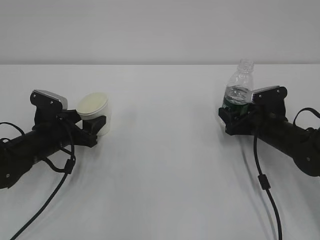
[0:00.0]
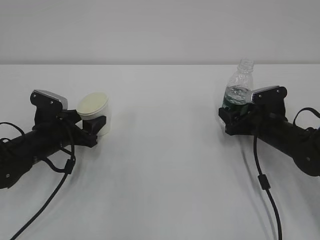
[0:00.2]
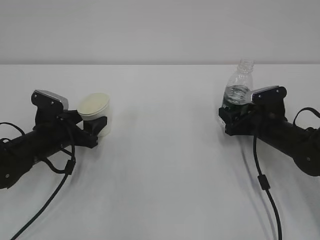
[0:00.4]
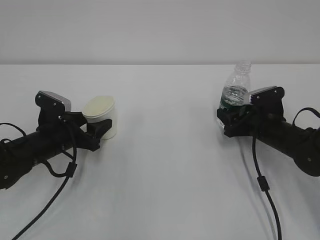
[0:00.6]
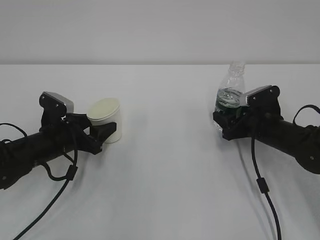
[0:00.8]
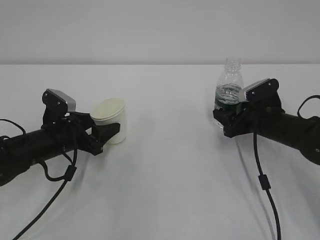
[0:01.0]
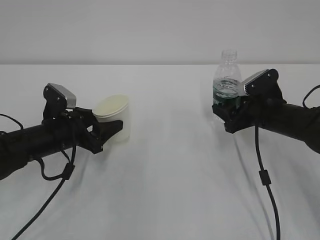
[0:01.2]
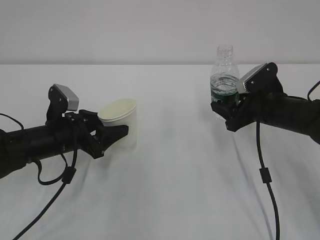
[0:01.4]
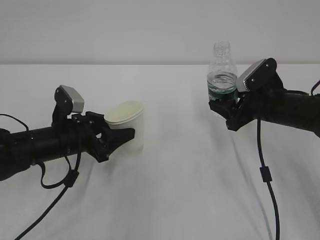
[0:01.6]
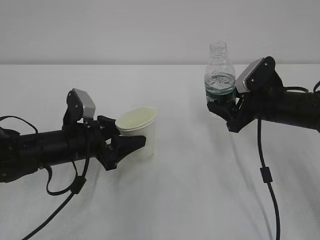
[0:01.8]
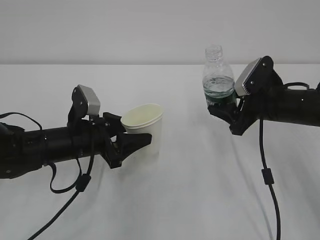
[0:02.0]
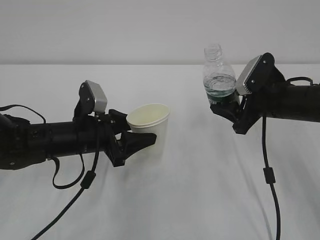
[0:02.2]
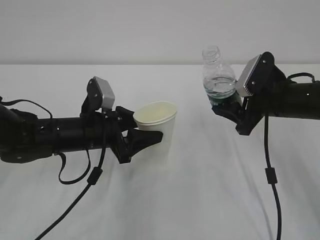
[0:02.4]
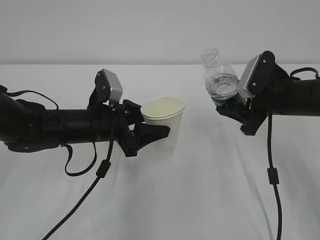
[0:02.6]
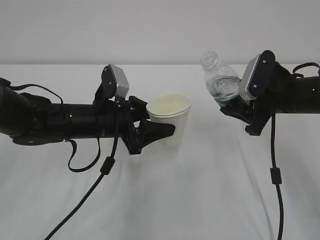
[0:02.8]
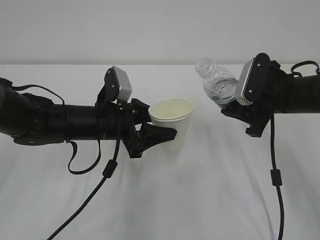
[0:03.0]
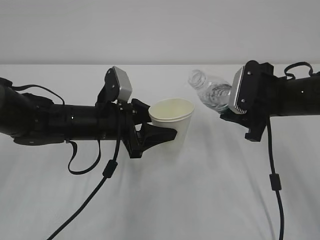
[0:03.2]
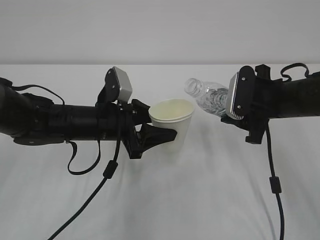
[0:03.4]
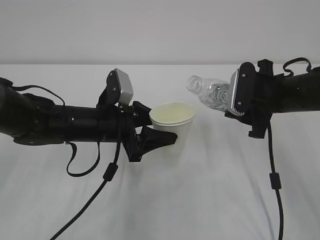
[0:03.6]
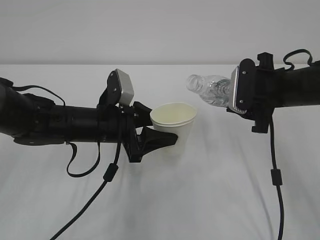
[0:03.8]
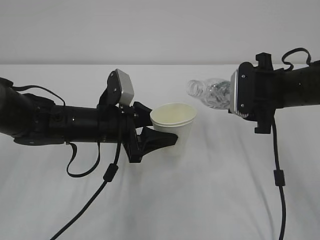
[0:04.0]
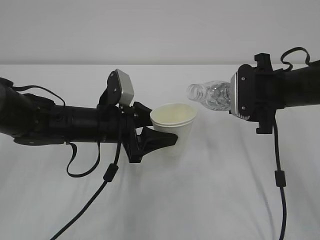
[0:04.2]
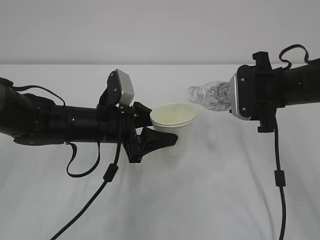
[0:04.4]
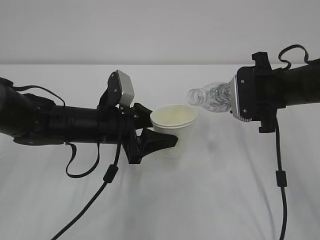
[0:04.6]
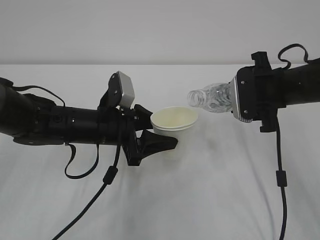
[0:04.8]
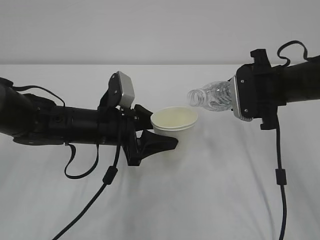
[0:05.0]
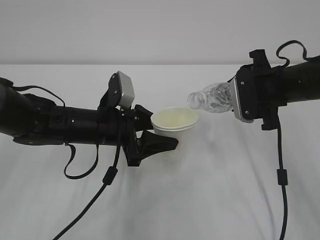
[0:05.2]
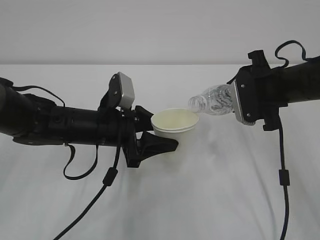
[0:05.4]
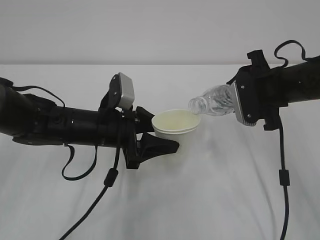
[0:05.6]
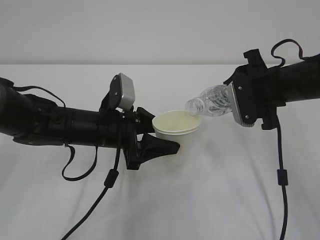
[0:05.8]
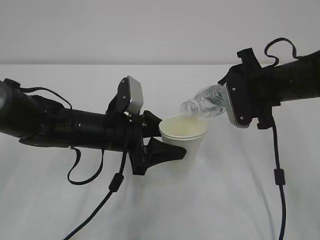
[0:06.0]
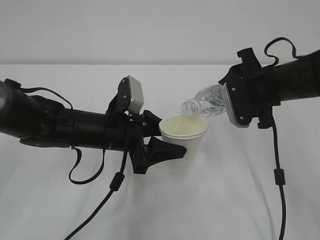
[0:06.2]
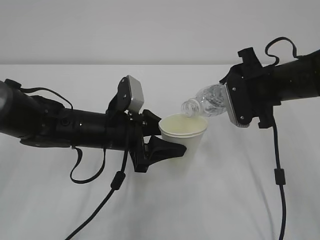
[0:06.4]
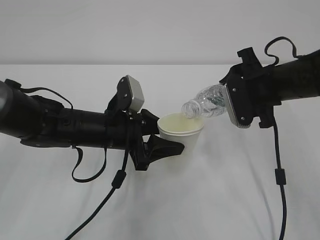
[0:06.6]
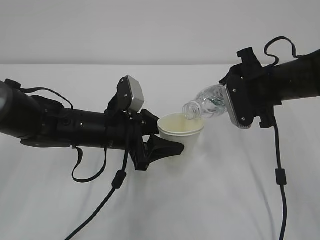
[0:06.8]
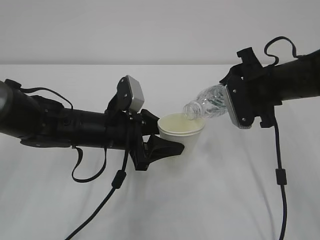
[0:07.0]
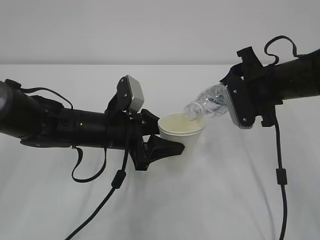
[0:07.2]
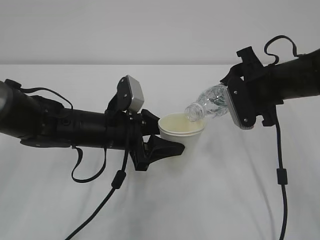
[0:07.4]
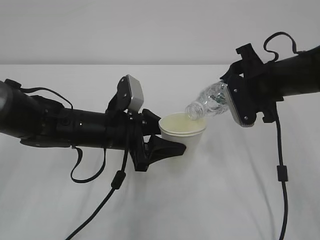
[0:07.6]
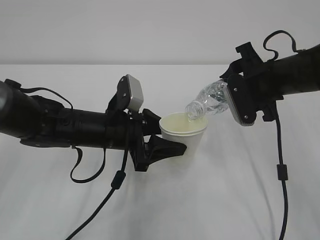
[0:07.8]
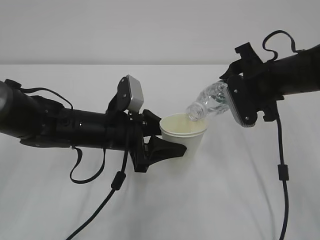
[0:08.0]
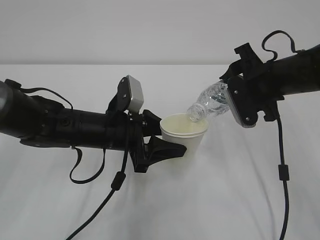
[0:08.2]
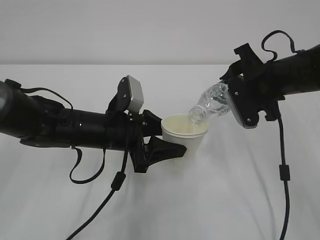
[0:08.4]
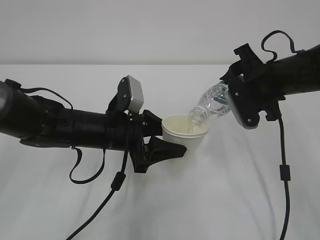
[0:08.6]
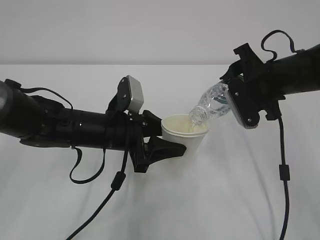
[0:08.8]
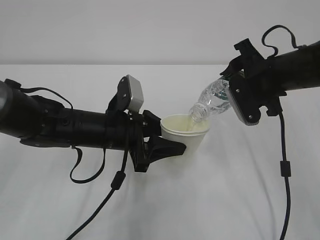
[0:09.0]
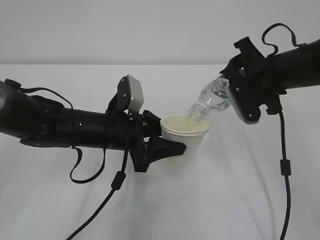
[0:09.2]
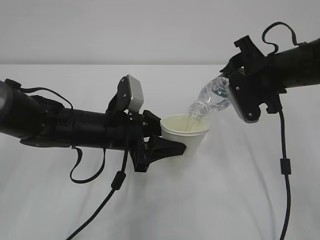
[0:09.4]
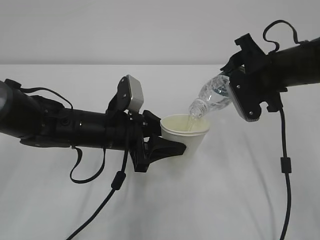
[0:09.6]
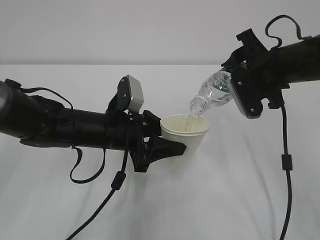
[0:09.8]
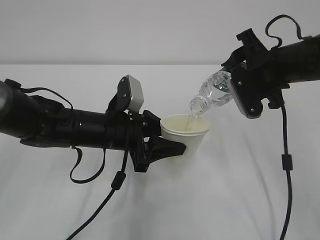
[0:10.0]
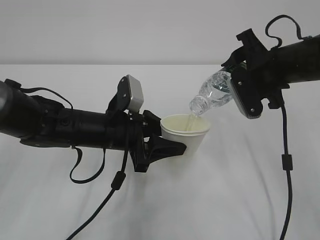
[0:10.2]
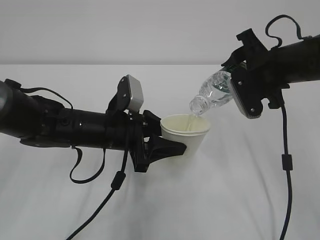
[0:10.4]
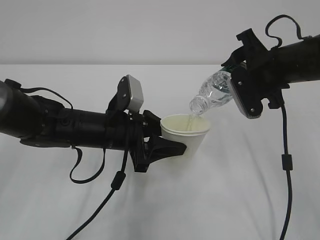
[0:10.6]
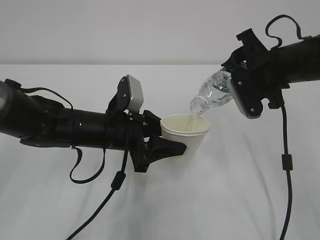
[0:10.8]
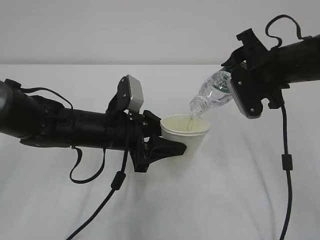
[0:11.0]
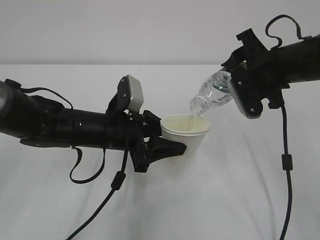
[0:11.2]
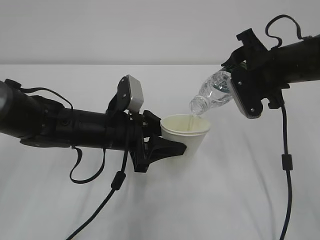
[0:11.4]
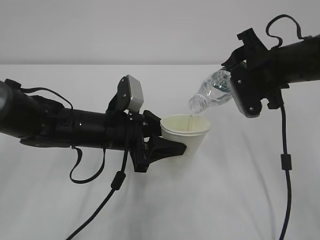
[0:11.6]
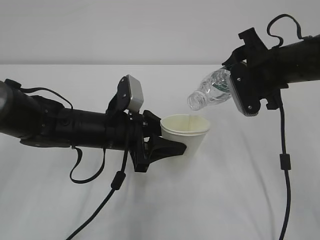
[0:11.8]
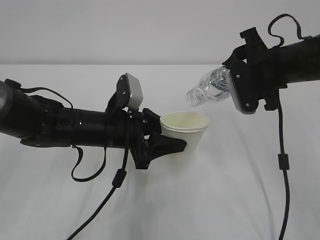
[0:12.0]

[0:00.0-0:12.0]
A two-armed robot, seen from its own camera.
0:00.0 to 0:01.6: The right gripper heads upward, covering approximately 10 cm. Meanwhile the left gripper changes place by roughly 5 cm.
0:01.6 to 0:03.0: The left gripper is displaced to the right by about 5 cm; the right gripper moves about 5 cm.
0:04.4 to 0:06.0: There are only small adjustments of the grippers.
0:06.0 to 0:12.0: There are only small adjustments of the grippers.

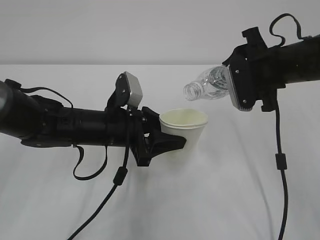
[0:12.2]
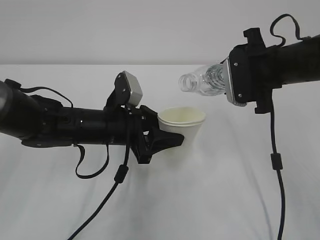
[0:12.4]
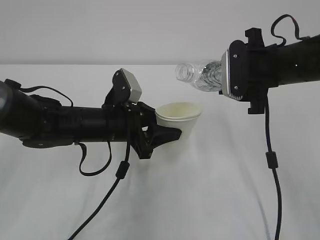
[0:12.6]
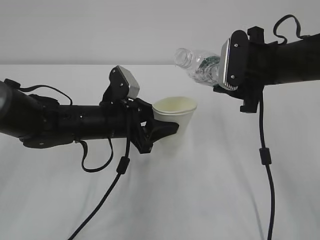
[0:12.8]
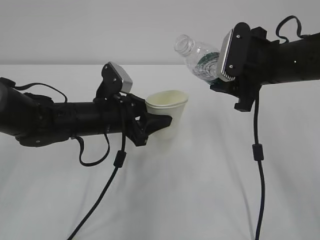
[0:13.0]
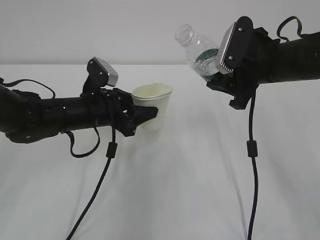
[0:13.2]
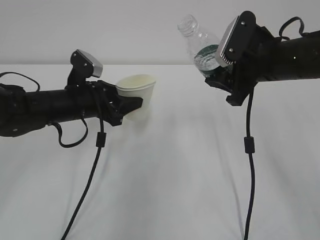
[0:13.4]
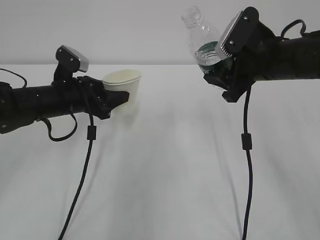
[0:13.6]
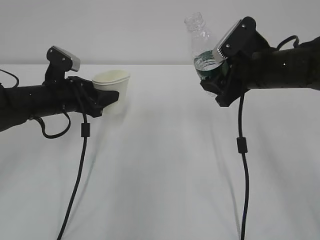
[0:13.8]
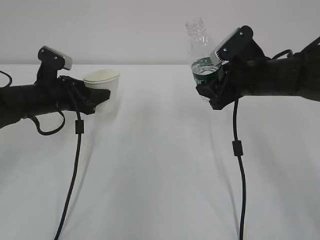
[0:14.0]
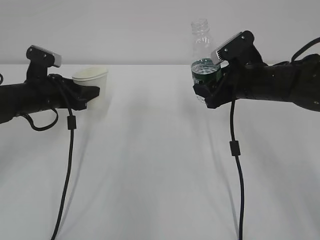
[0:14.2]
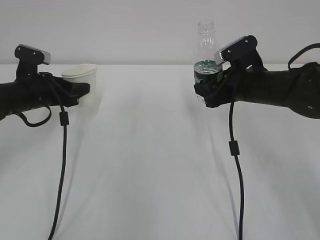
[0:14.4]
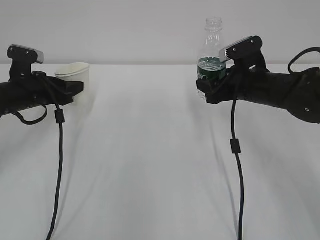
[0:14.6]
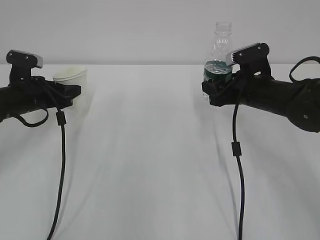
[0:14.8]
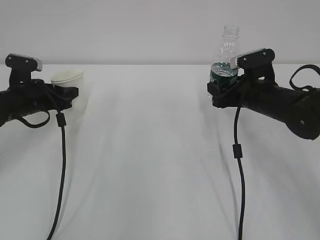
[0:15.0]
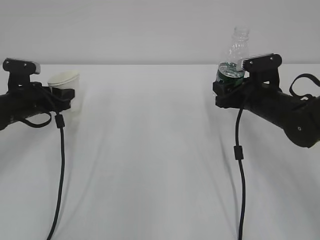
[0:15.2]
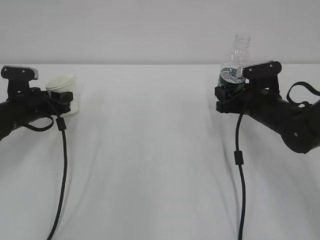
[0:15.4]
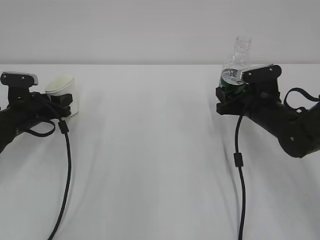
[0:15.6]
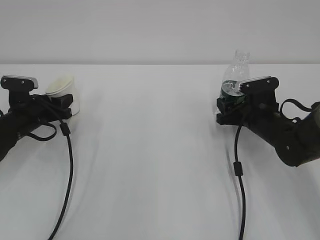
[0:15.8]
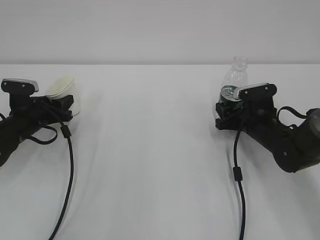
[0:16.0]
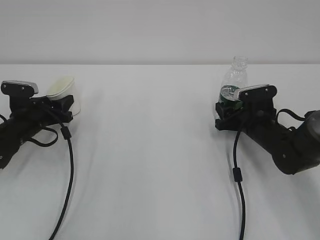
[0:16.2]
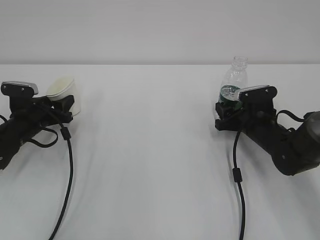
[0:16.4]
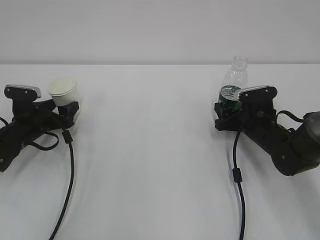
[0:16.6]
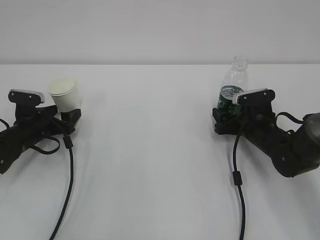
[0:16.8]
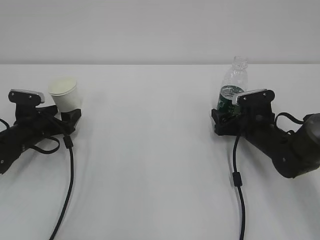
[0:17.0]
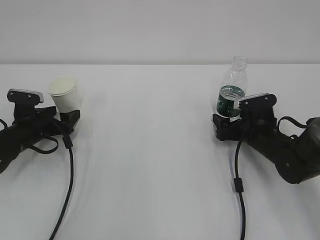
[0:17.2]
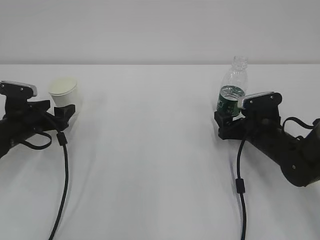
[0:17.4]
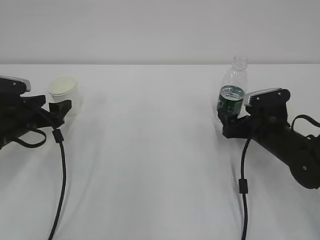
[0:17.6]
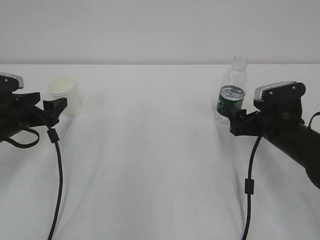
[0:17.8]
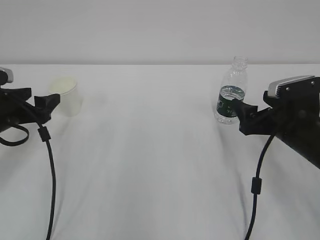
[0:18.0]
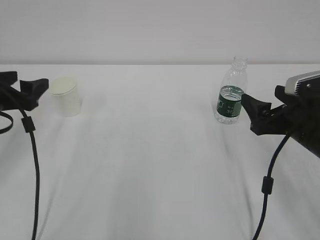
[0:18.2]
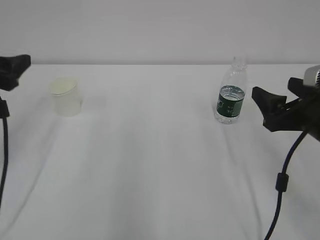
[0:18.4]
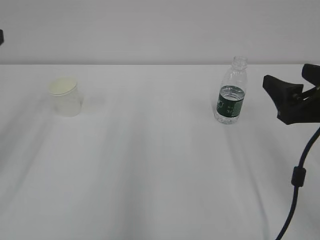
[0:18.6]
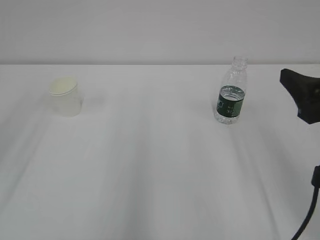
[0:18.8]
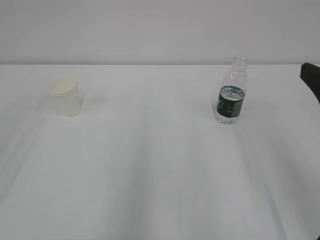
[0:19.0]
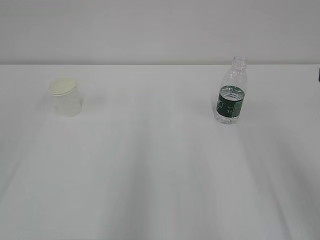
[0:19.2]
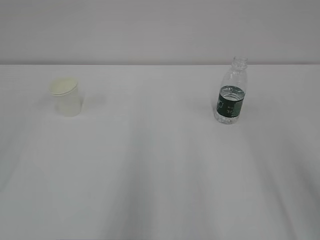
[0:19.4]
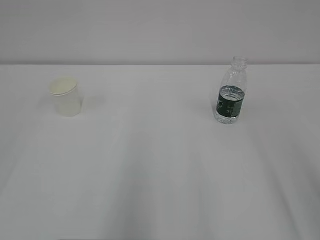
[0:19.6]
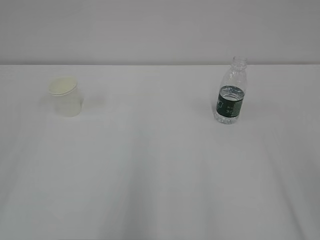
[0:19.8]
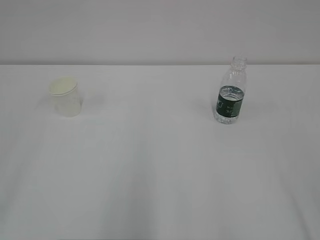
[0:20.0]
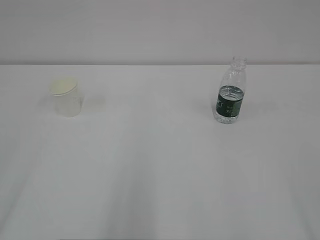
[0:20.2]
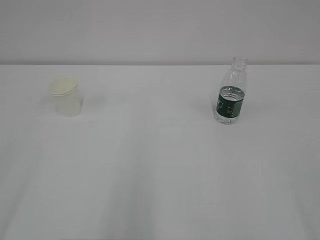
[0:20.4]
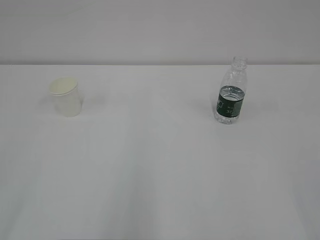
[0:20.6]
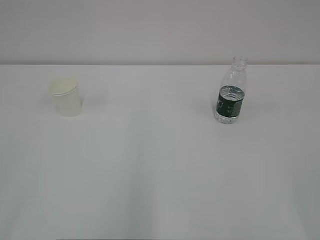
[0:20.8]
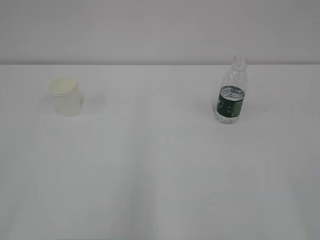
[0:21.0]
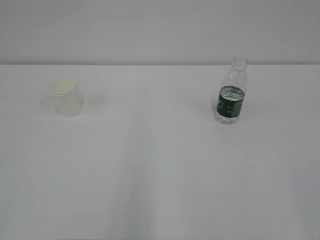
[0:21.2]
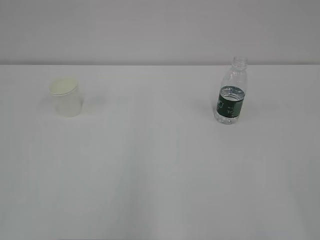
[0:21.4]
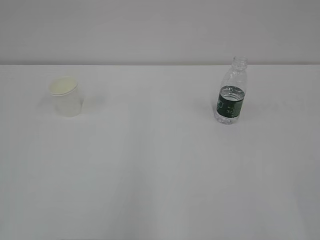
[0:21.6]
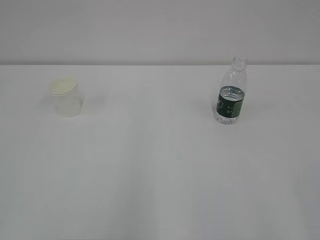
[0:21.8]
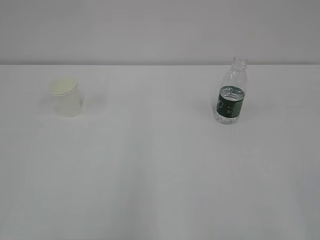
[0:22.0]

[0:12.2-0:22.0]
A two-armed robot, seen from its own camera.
0:12.2 to 0:13.6: The left gripper shifts approximately 10 cm to the left and forward.
0:13.6 to 0:15.0: The right gripper shifts about 10 cm downward. Meanwhile the left gripper moves to the left, approximately 10 cm.
0:15.0 to 0:16.4: Both grippers move downward, some 5 cm.
0:16.4 to 0:17.8: The left gripper travels upward by some 5 cm, and opens. The right gripper is displaced backward and upward by approximately 10 cm, and opens its fingers.
0:17.8 to 0:19.2: Both grippers move upward and backward, approximately 30 cm.

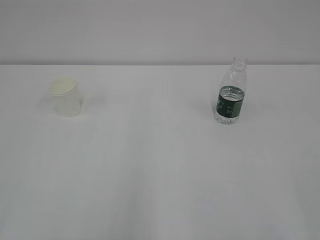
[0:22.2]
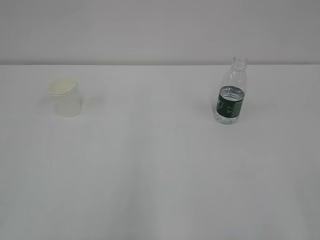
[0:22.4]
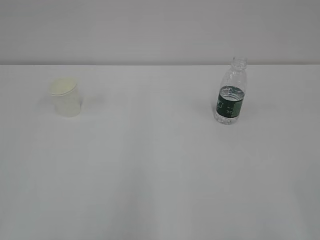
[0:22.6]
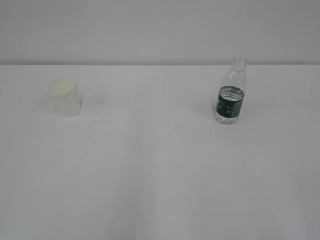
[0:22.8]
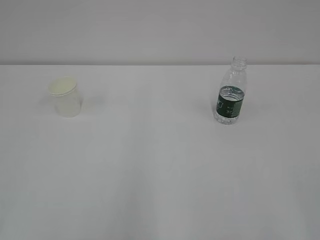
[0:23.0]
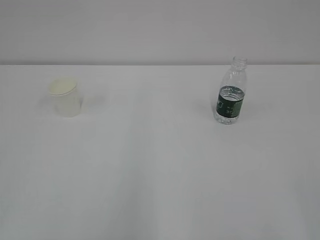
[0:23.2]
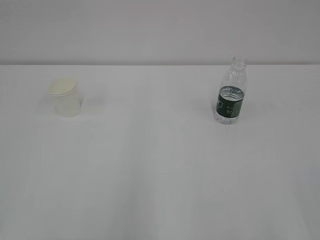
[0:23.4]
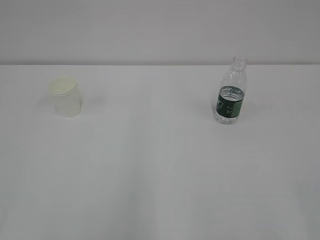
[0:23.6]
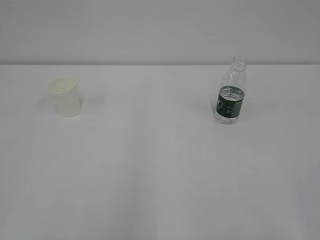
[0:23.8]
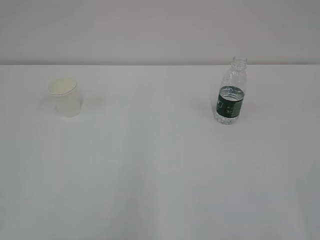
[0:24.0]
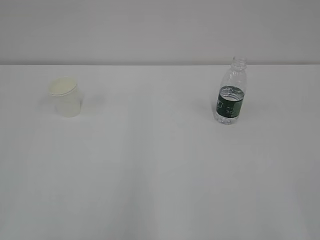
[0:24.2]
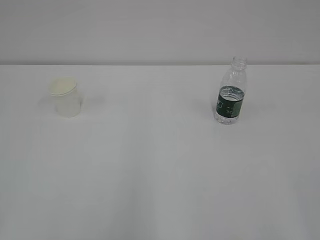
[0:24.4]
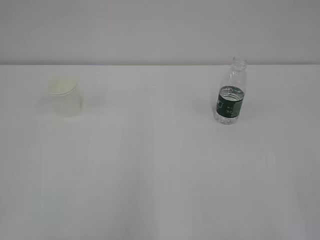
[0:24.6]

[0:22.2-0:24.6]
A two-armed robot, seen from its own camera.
0:22.2 to 0:24.6: Neither gripper changes place.
